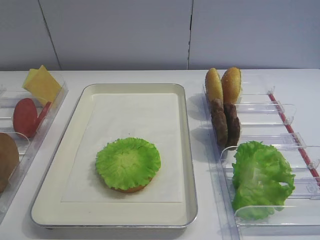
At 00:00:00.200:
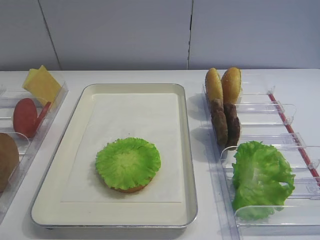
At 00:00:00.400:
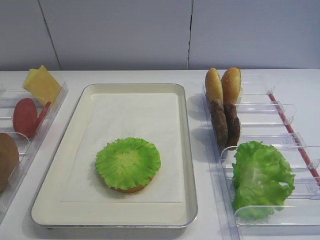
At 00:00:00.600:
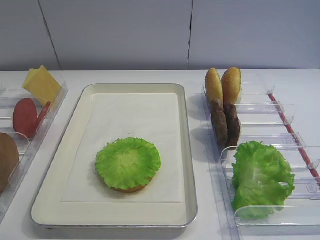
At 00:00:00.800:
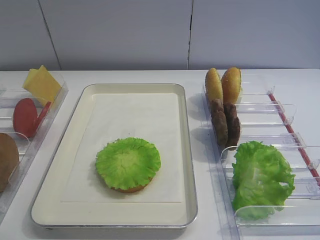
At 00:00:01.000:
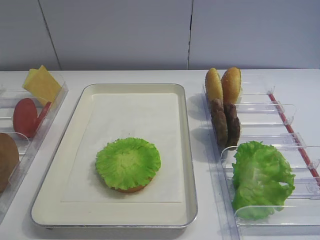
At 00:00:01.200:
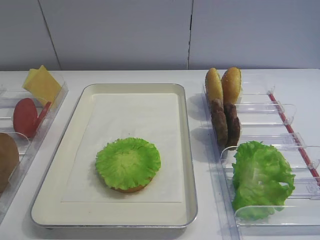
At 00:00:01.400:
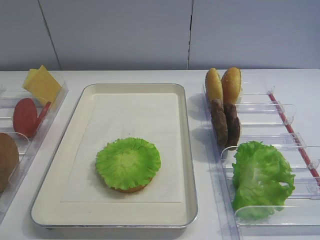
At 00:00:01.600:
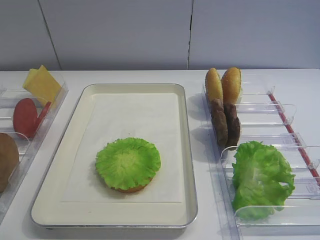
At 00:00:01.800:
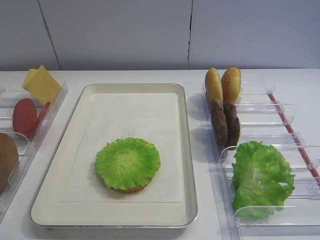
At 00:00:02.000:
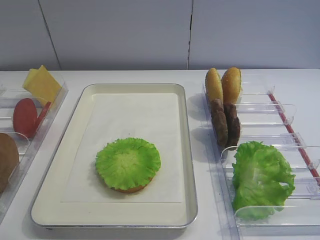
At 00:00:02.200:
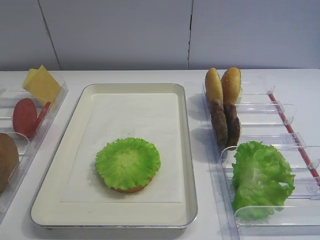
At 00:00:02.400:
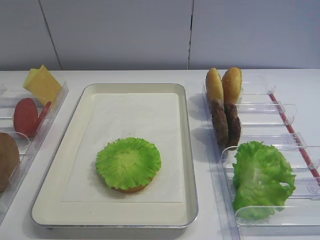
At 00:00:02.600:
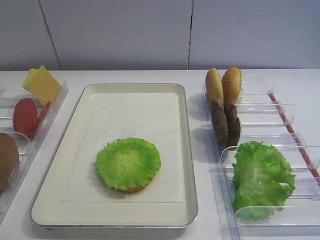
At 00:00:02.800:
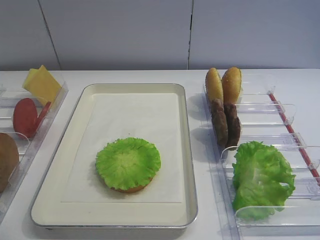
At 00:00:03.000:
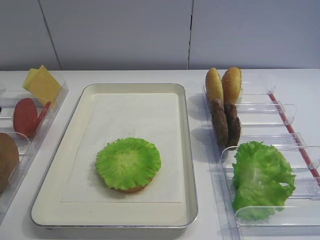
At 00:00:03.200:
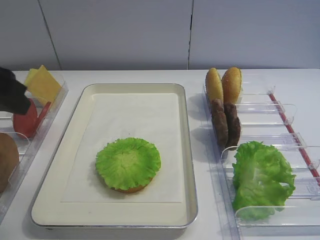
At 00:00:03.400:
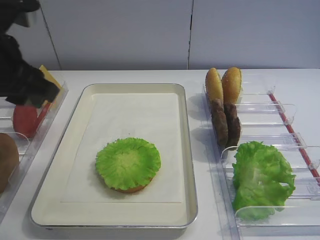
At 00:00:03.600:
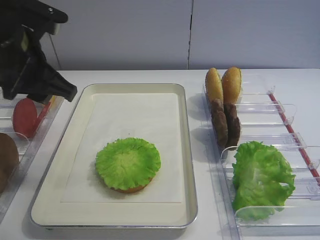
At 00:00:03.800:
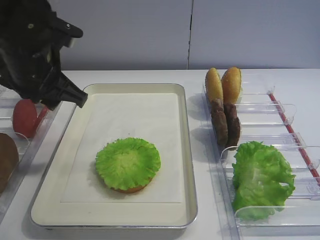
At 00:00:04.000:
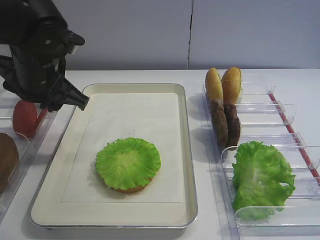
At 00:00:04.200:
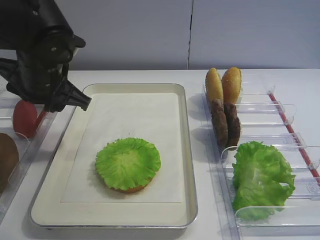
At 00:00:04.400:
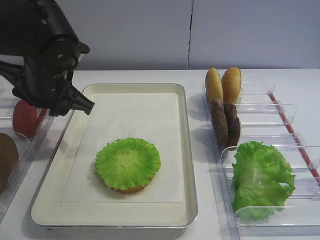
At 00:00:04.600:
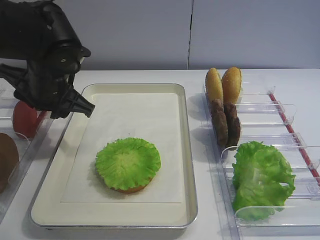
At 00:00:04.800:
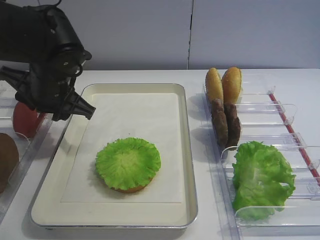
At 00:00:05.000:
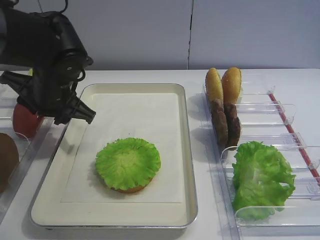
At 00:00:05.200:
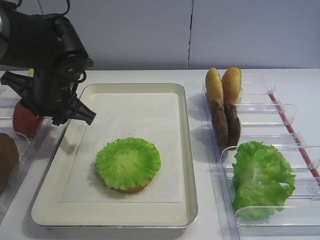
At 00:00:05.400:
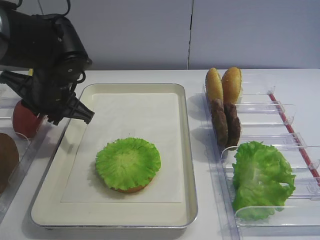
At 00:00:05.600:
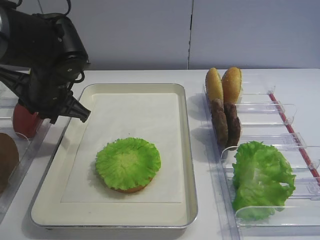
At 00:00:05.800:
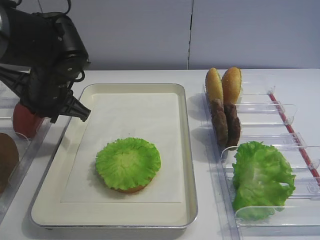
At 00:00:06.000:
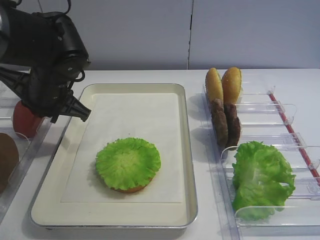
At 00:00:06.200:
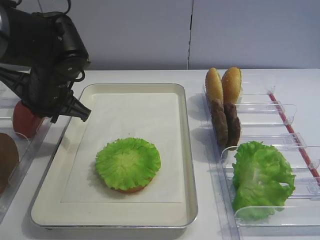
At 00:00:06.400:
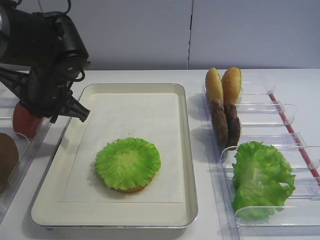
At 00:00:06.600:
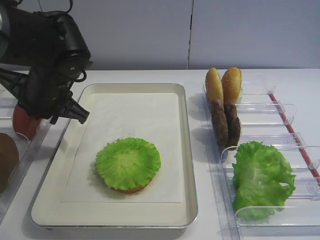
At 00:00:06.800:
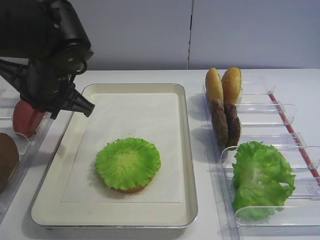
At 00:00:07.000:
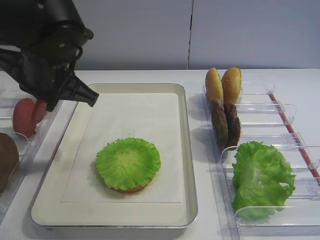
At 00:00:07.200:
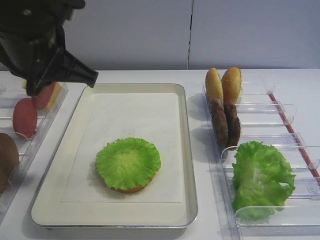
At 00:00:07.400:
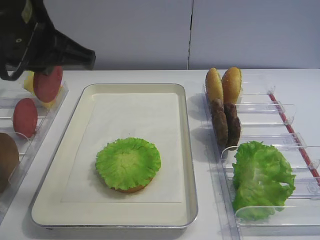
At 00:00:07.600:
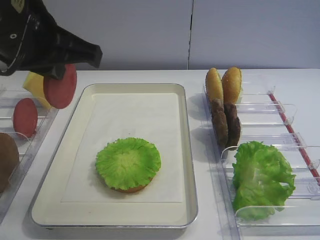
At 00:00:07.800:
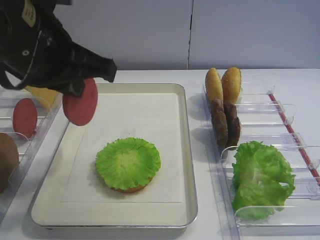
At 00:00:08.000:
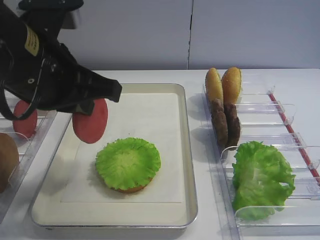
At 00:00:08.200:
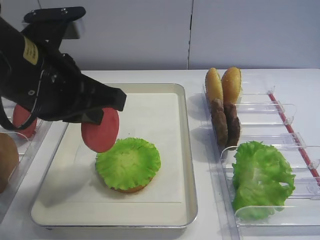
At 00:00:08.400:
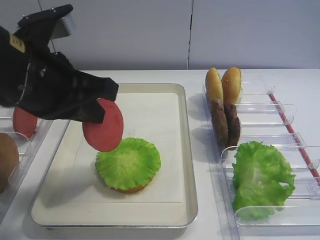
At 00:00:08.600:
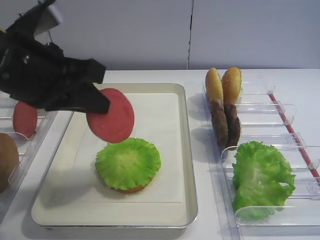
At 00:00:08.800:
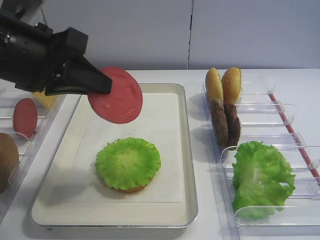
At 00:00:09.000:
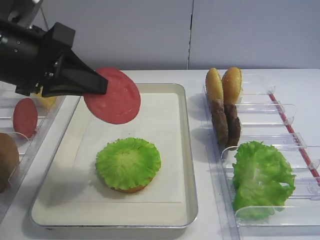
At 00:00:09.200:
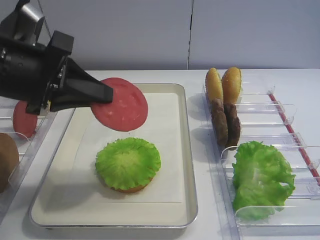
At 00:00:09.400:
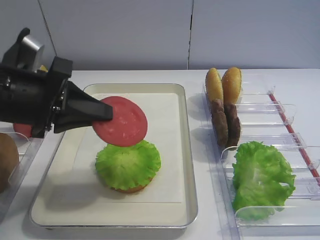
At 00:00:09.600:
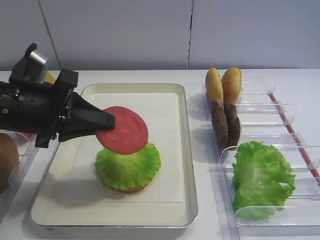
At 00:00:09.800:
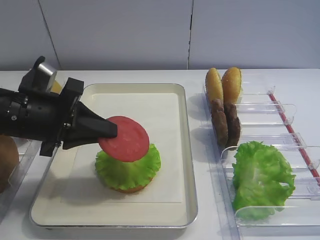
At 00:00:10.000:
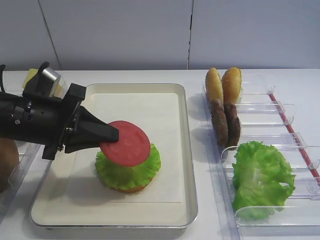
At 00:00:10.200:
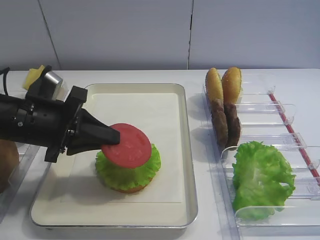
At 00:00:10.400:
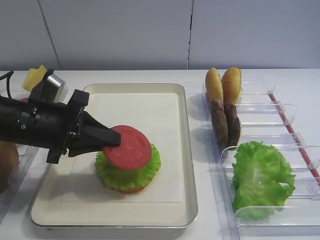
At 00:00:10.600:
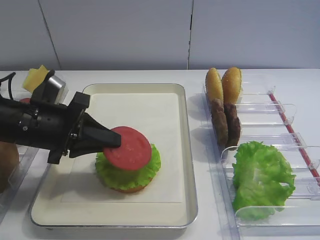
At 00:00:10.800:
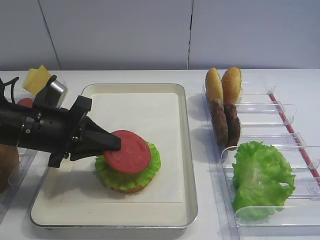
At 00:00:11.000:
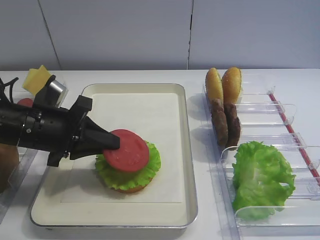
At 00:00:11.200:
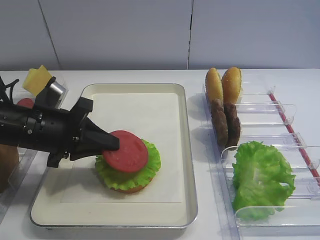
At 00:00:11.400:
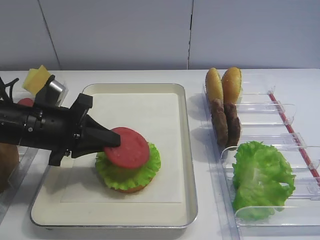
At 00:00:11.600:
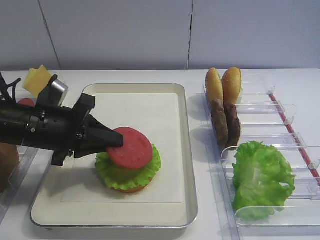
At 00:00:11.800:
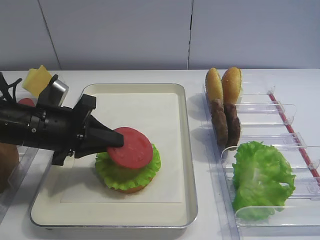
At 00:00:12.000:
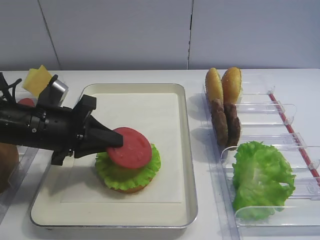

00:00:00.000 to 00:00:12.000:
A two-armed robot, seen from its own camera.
Step, 00:00:00.000 to 00:00:07.000: Pick up the bread slice with the left gripper.
00:00:03.000 to 00:00:04.400: The left gripper shifts some 20 cm forward, to the right and downward.
00:00:04.400 to 00:00:06.000: The left gripper closes up.
00:00:06.000 to 00:00:07.600: The left gripper travels upward and backward by approximately 15 cm.
00:00:07.600 to 00:00:09.000: The left gripper moves some 5 cm.
00:00:09.000 to 00:00:10.400: The left gripper shifts about 10 cm downward.
00:00:10.400 to 00:00:12.000: The grippers make only small movements.

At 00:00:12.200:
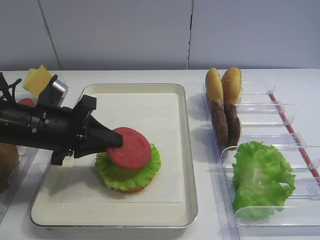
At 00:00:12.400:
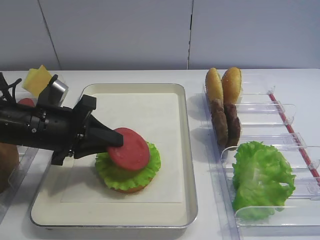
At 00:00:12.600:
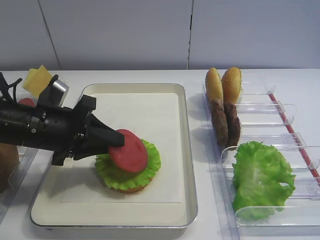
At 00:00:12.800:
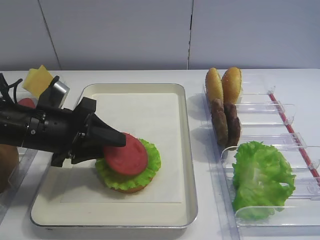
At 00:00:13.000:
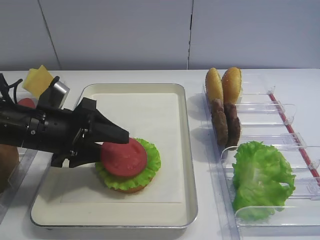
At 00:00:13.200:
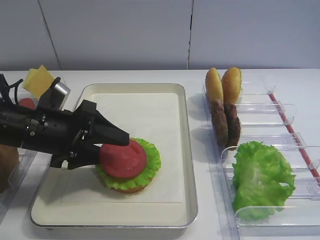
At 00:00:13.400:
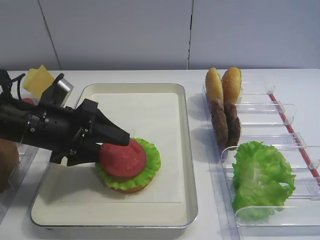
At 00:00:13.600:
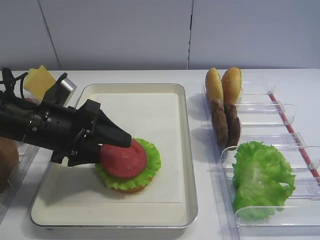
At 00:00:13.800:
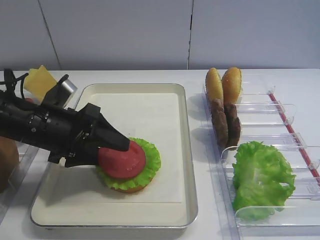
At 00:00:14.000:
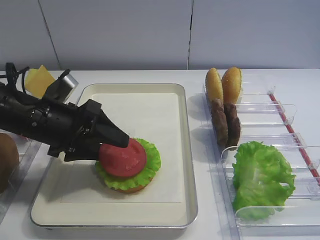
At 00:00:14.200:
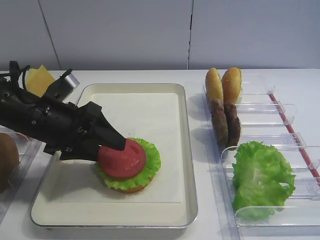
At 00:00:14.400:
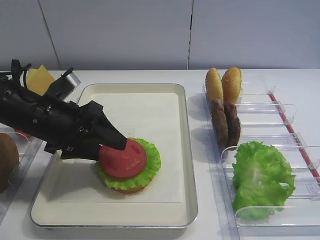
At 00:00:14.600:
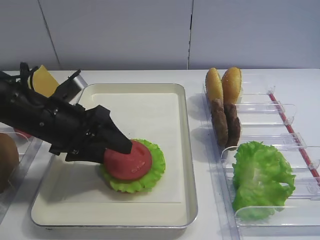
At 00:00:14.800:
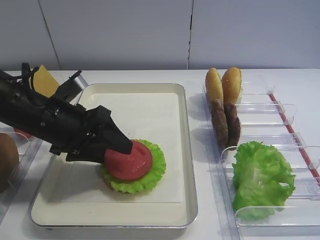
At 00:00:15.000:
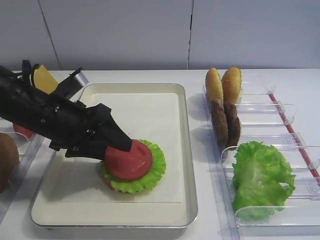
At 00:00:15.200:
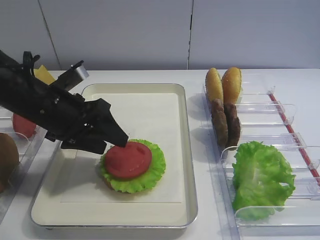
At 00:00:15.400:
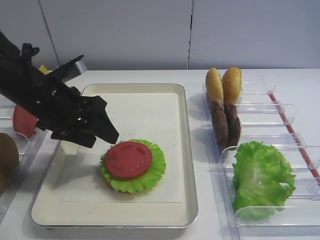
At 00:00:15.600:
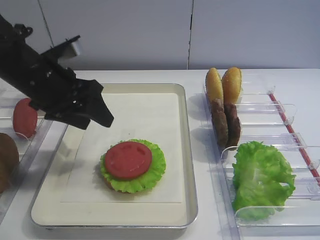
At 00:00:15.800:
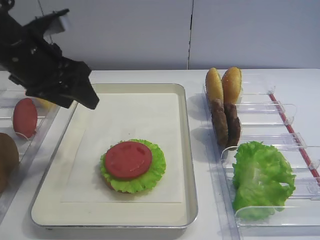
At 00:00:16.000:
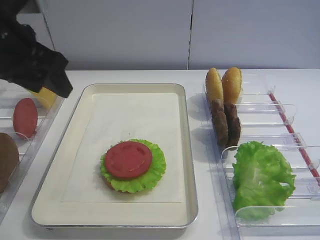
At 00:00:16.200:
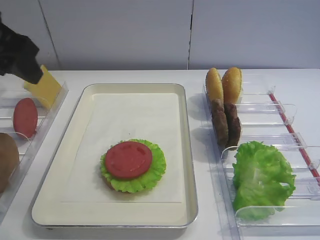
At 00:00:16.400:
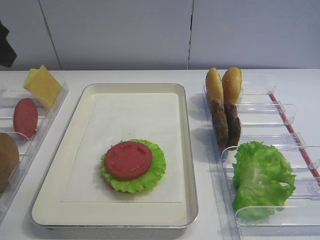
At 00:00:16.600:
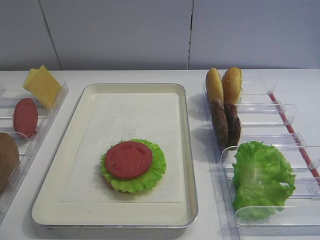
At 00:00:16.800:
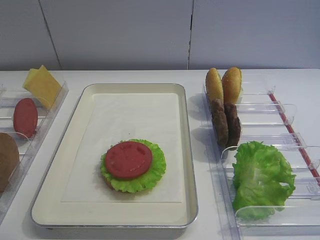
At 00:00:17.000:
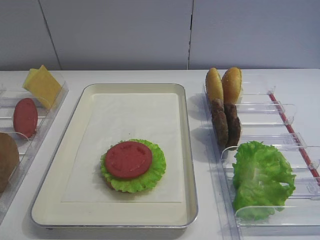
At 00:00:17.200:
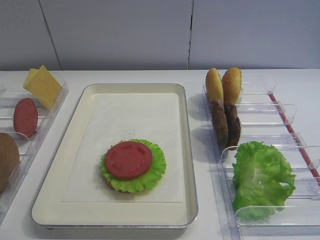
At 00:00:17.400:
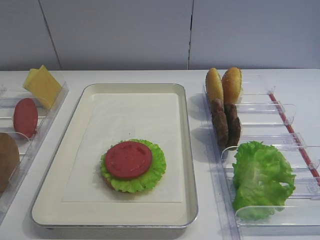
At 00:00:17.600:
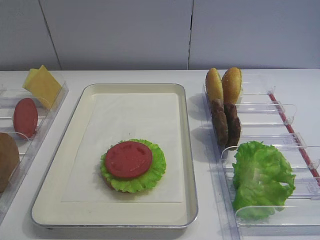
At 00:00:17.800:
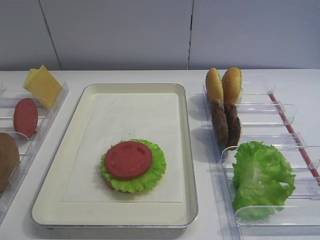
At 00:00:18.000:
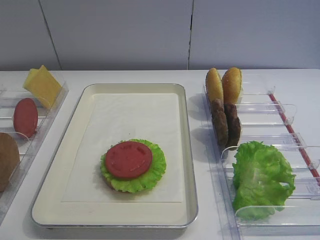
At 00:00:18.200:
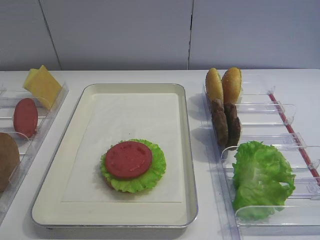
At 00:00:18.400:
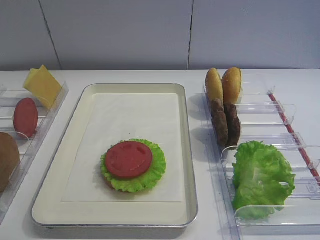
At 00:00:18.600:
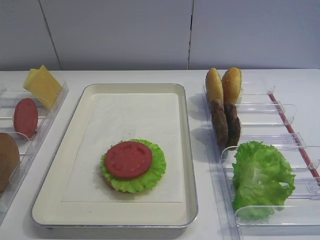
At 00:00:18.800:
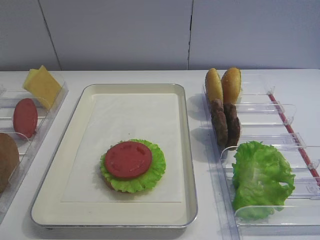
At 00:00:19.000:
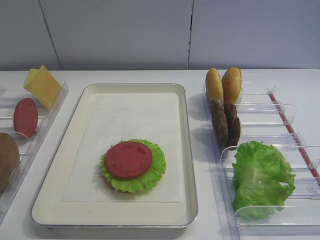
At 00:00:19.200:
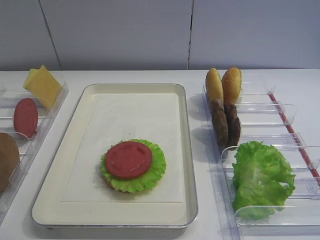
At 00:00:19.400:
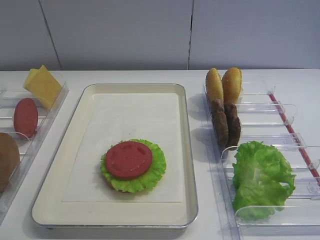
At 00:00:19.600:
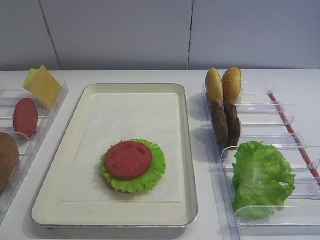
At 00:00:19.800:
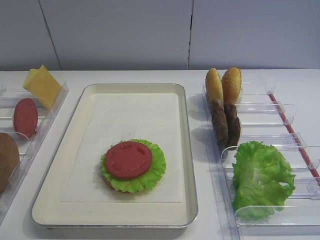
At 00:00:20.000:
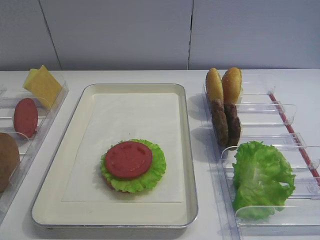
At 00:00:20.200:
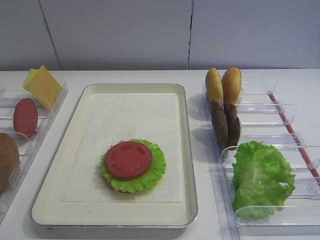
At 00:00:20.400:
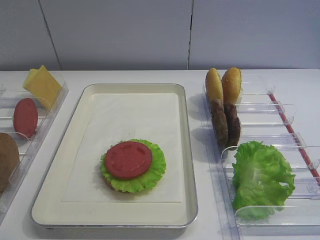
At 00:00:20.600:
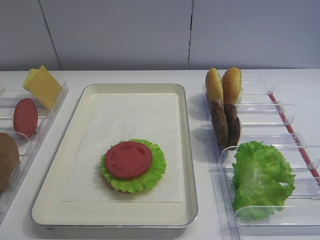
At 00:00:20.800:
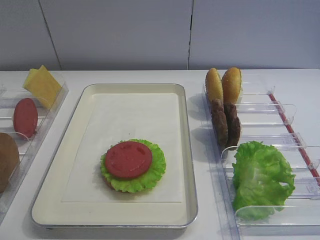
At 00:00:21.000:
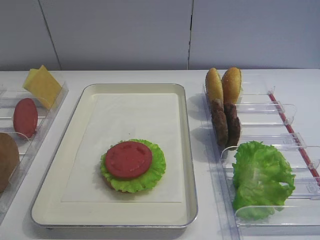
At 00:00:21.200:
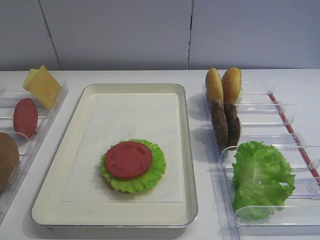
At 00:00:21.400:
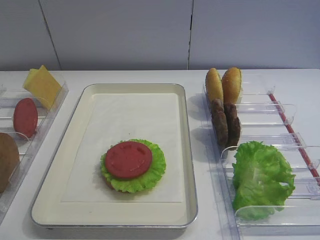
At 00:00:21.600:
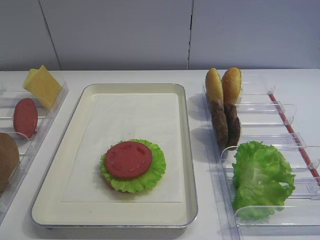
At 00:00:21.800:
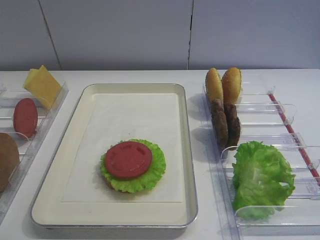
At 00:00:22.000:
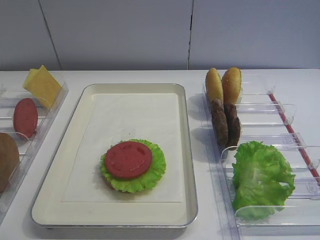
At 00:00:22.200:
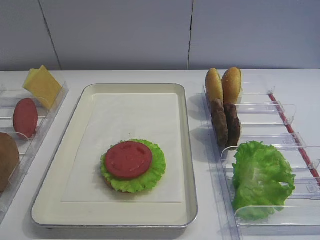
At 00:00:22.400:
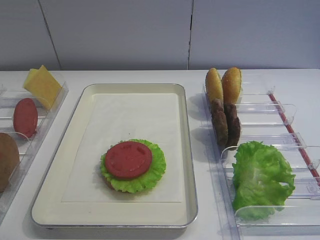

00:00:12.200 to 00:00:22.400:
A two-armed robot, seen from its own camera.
Step, 00:00:12.200 to 00:00:15.400: Place the bread slice on the tray with the left gripper.
00:00:12.200 to 00:00:13.600: The left gripper opens.
00:00:13.600 to 00:00:15.200: The grippers move only a little.
00:00:15.200 to 00:00:16.600: The left gripper heads upward, to the left and backward, covering about 25 cm.
00:00:21.000 to 00:00:22.400: Neither gripper changes place.
